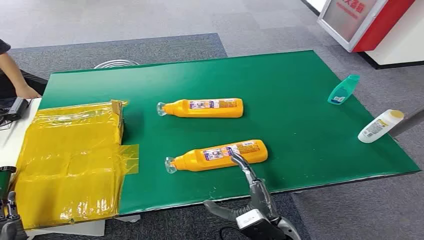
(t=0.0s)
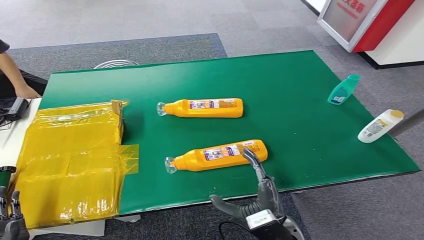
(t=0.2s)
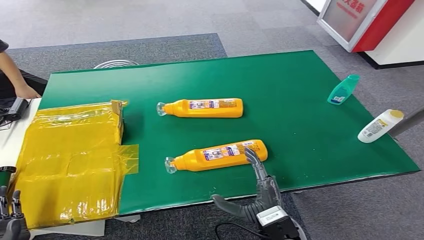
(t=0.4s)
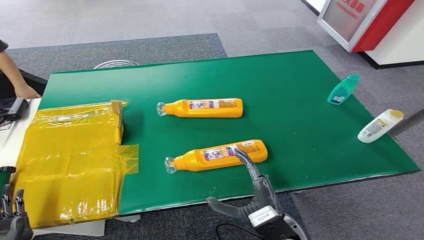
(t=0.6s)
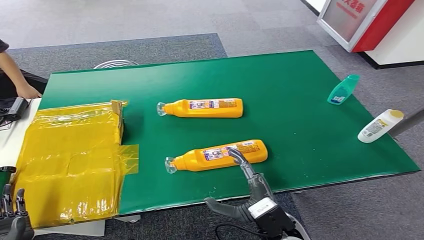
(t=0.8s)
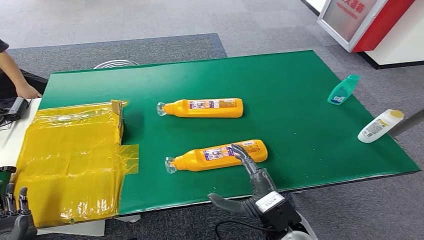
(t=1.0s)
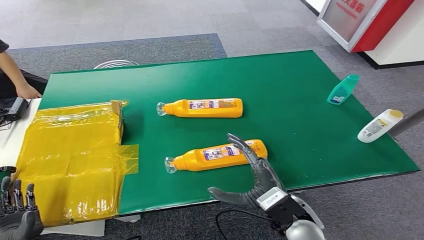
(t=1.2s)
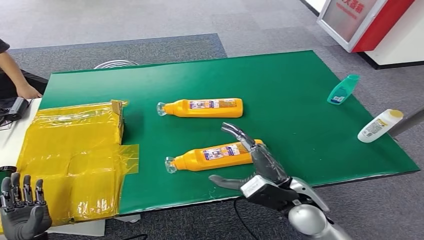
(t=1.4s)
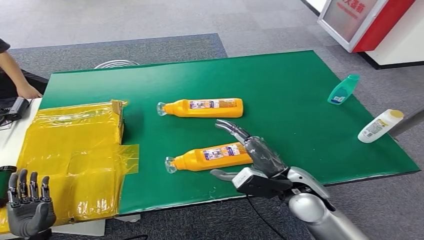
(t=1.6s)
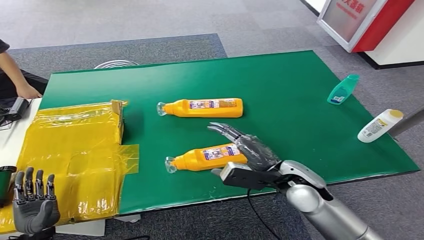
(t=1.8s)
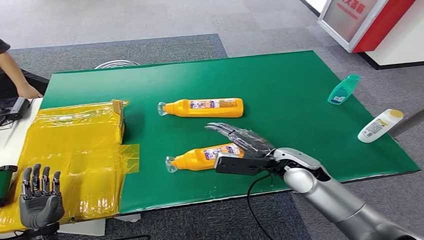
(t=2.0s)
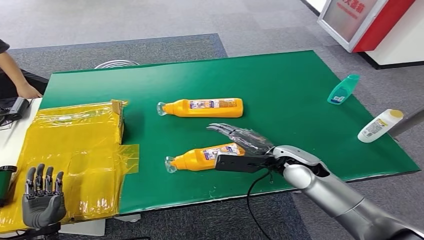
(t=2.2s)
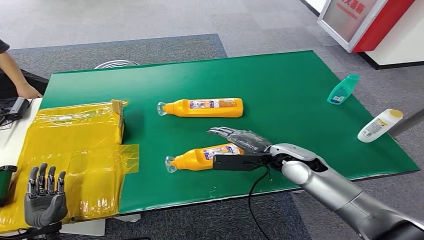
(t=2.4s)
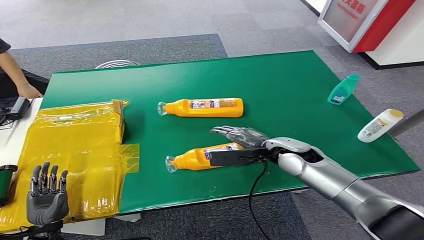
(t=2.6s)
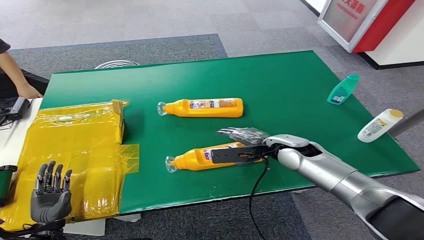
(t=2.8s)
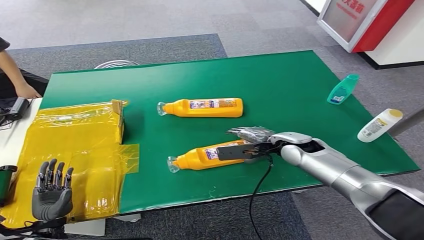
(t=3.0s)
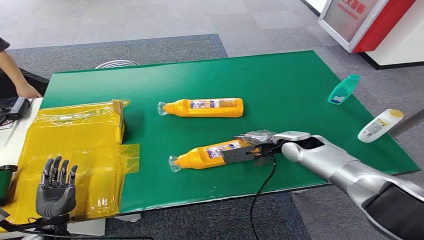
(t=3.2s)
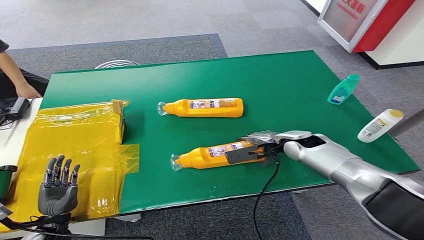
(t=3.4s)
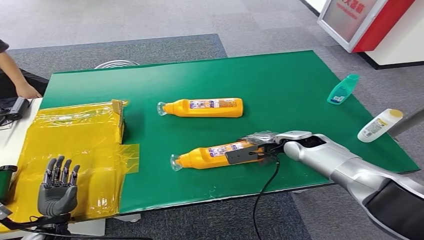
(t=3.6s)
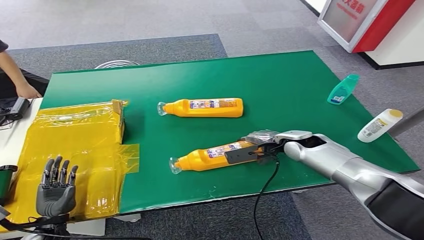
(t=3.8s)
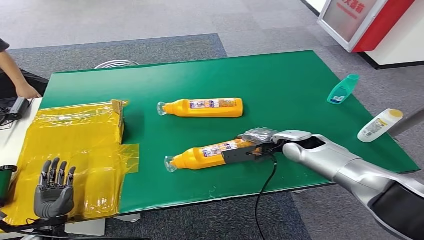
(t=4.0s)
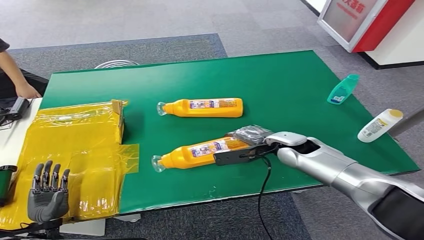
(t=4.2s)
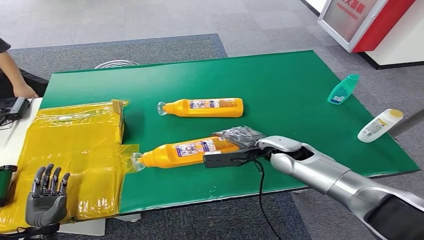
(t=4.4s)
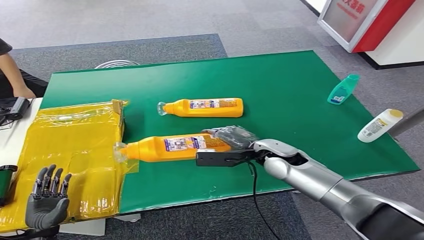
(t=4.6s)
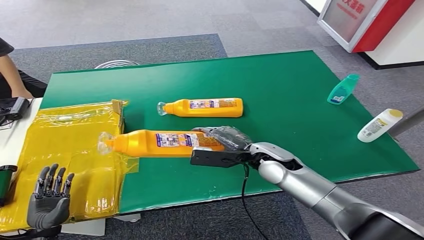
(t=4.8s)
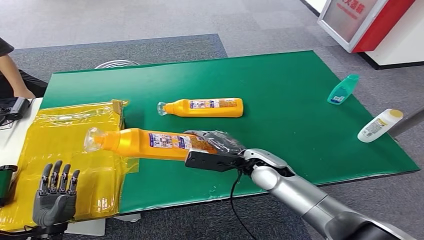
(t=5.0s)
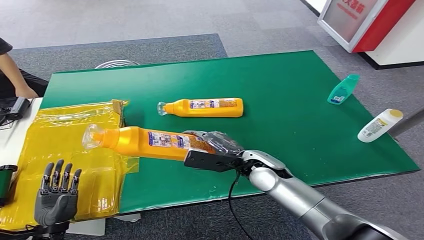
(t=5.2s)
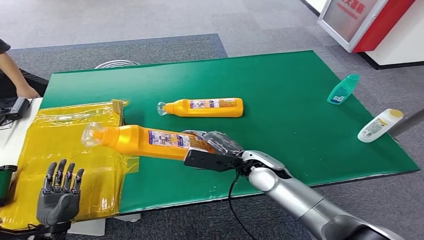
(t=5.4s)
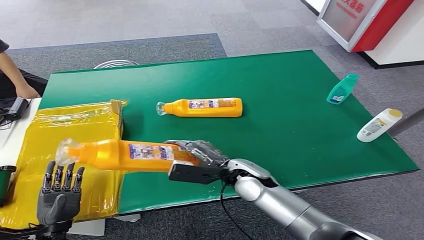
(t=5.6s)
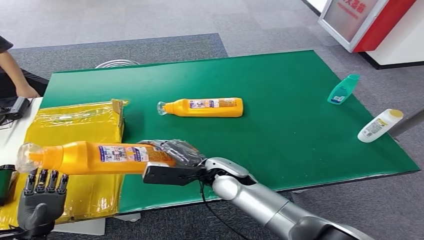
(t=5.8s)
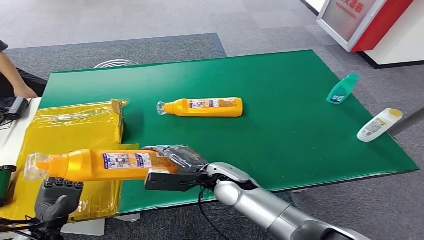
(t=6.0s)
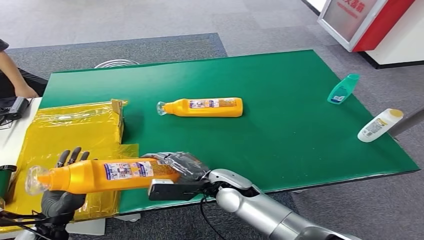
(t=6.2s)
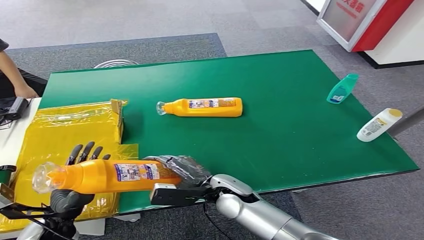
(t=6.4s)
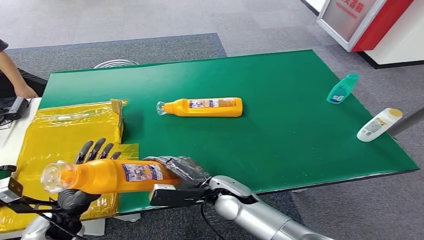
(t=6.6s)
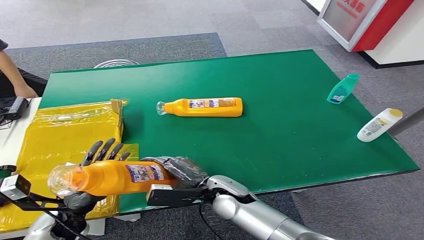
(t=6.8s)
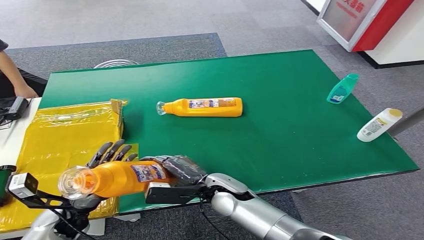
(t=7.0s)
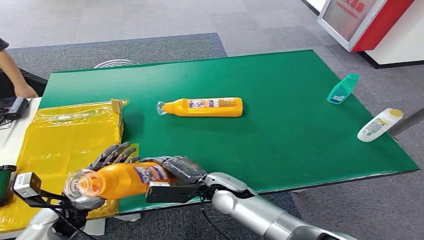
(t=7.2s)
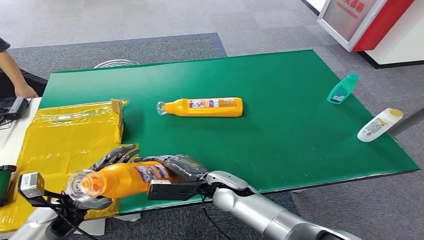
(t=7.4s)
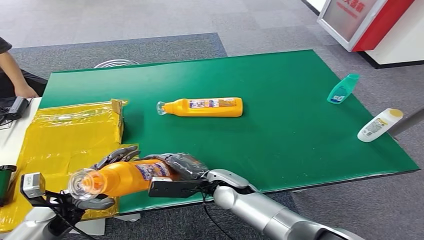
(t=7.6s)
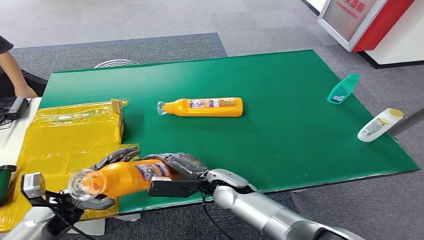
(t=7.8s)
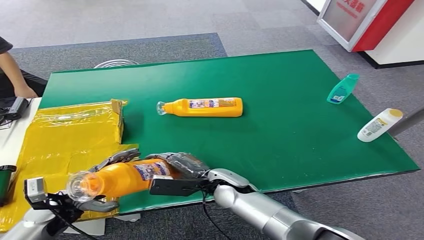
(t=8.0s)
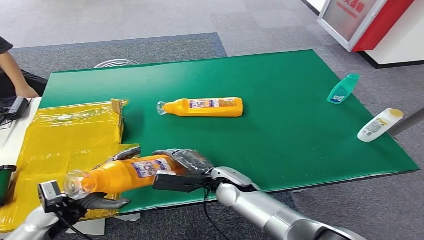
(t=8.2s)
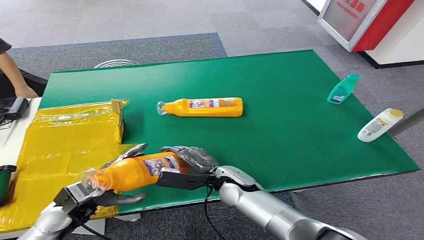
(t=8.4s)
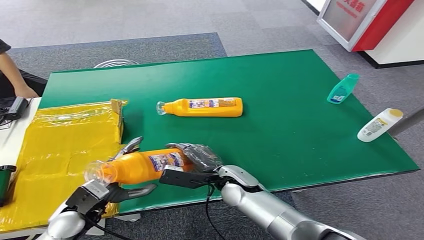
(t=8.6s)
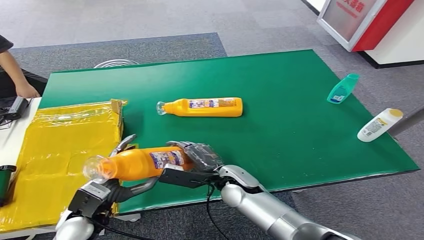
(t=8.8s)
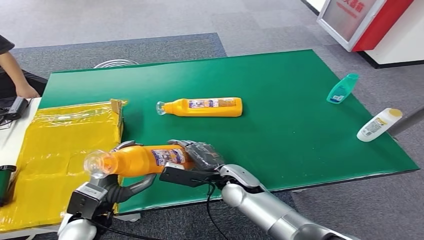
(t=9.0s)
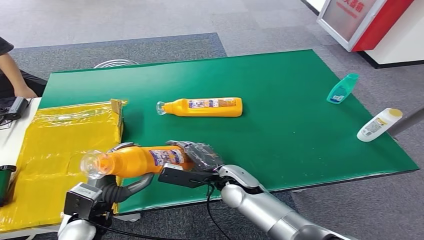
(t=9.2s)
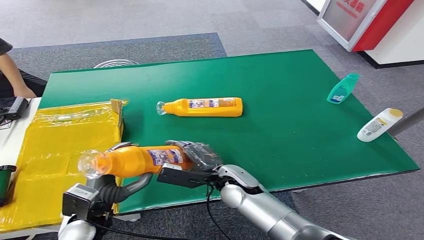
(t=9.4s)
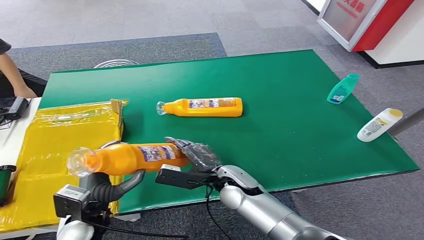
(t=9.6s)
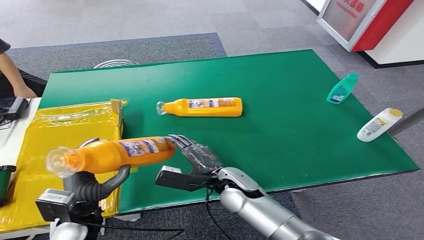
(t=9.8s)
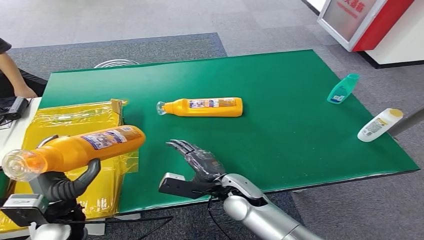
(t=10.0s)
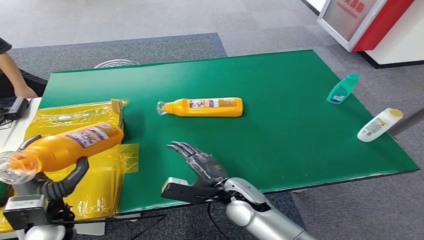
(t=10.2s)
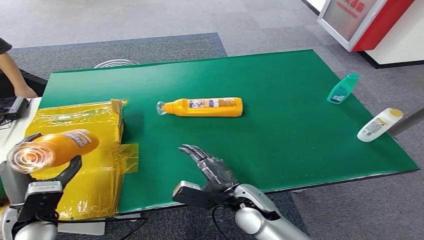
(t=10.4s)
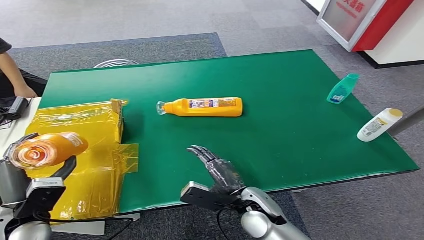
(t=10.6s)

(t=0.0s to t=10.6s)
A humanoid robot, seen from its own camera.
Step, t=0.0s - t=4.4s: Pick up the bottle from the table.
Step, t=4.6s - t=10.6s: Turn the bottle to the front side.
t=1.6s - t=3.0s: The right hand travels forward by approximately 15 cm.
t=3.0s - t=4.6s: The right hand shifts by some 5 cm.
t=6.0s - t=7.6s: The left hand travels forward and to the right by approximately 10 cm.
t=7.6s - t=9.0s: The left hand heads to the right, covering approximately 5 cm.
t=9.0s - t=10.6s: The left hand heads to the left, covering some 10 cm. Meanwhile the right hand shifts some 5 cm backward.
